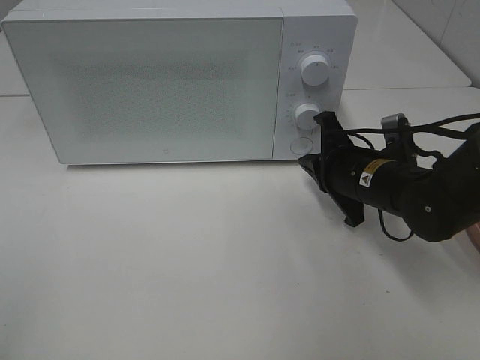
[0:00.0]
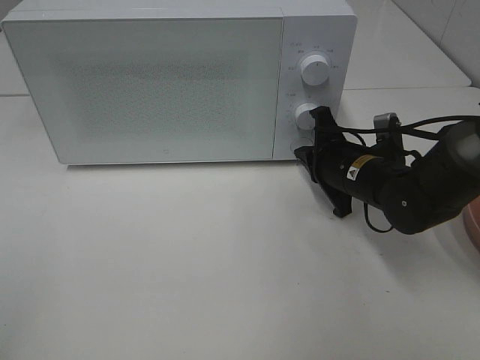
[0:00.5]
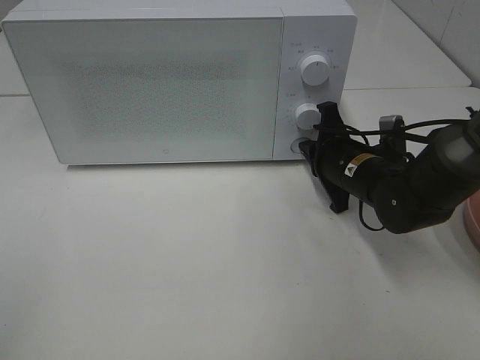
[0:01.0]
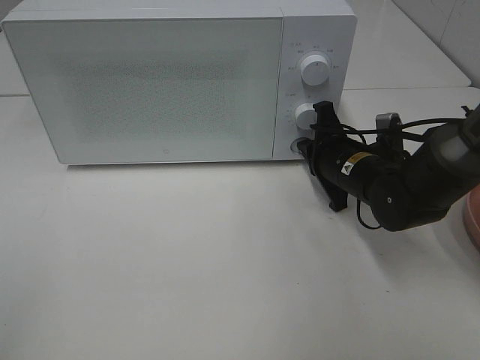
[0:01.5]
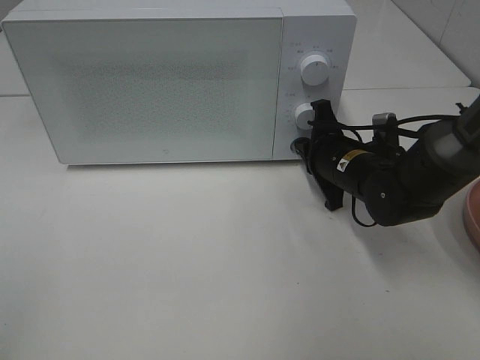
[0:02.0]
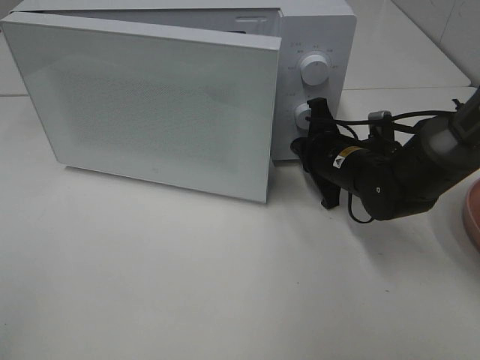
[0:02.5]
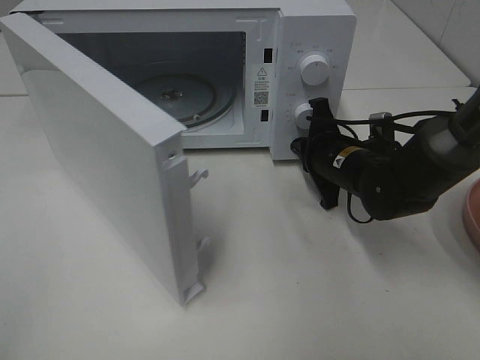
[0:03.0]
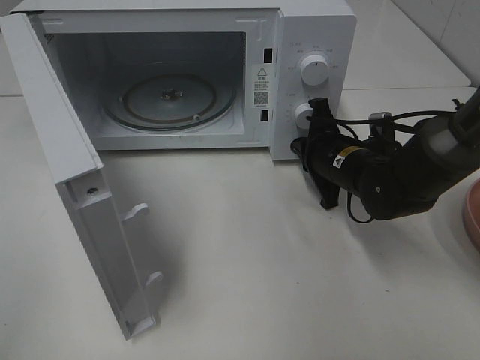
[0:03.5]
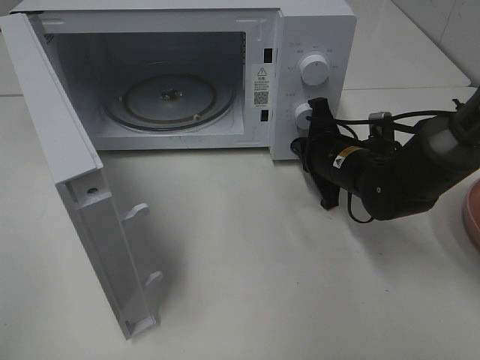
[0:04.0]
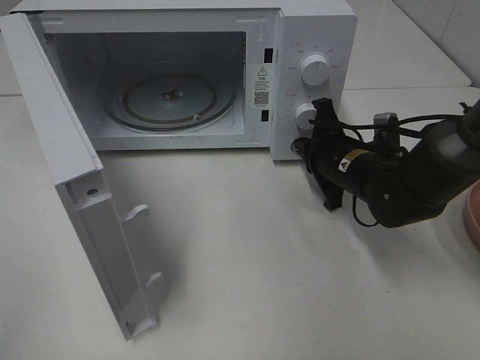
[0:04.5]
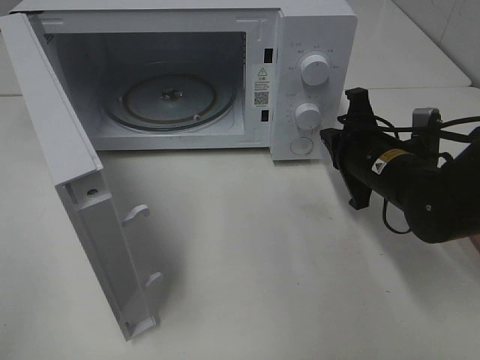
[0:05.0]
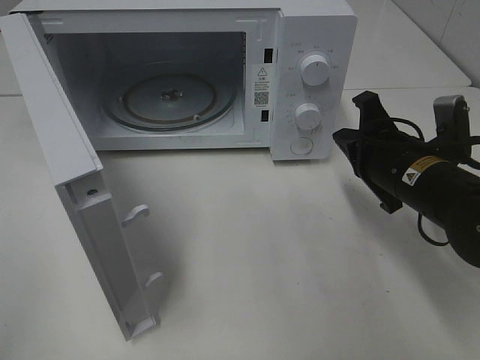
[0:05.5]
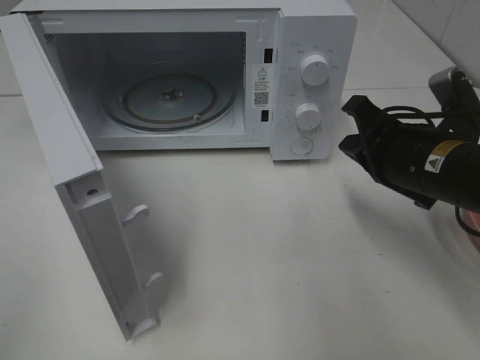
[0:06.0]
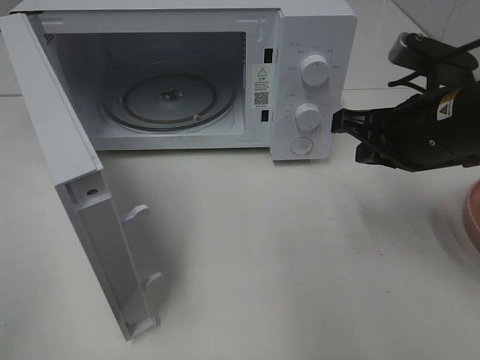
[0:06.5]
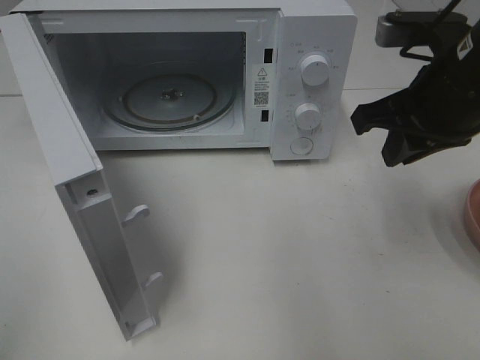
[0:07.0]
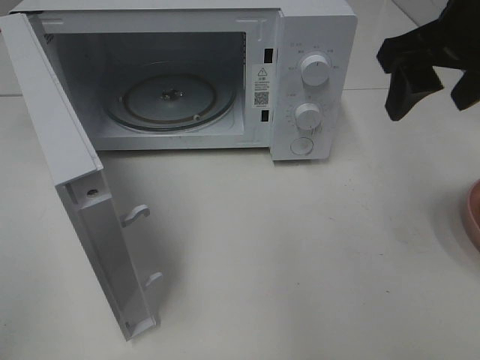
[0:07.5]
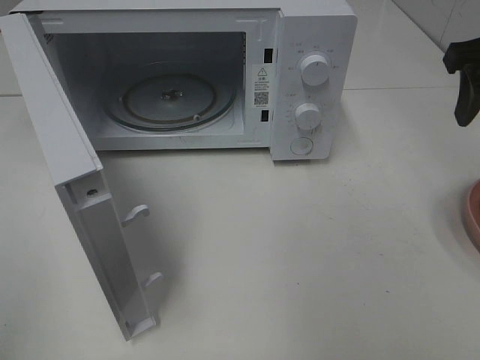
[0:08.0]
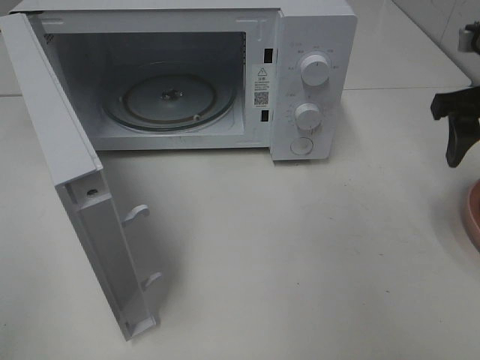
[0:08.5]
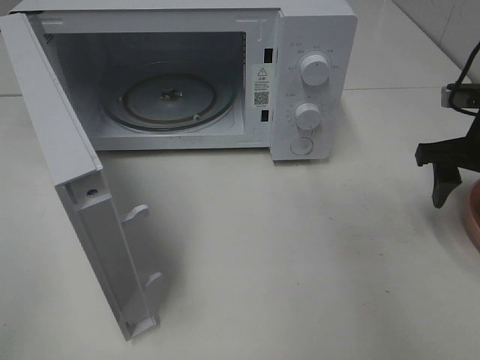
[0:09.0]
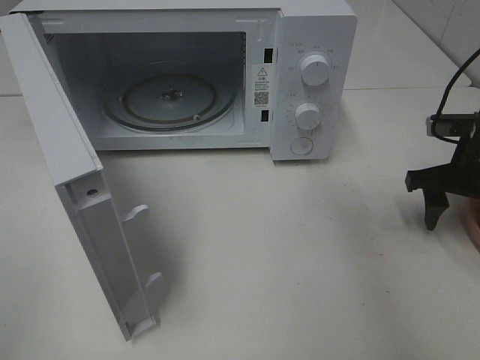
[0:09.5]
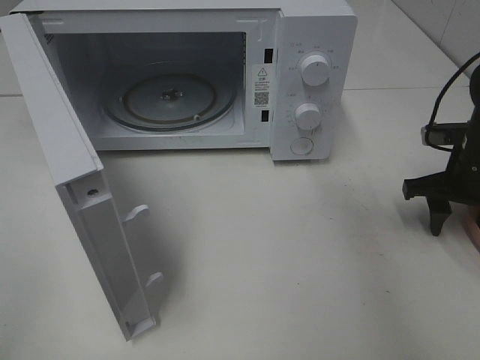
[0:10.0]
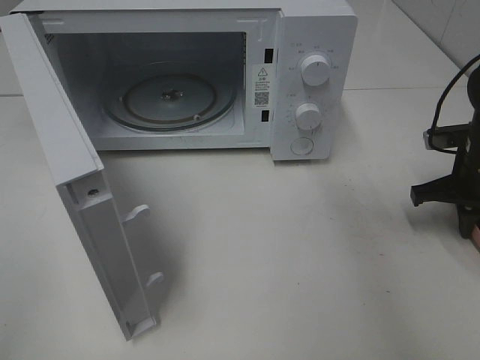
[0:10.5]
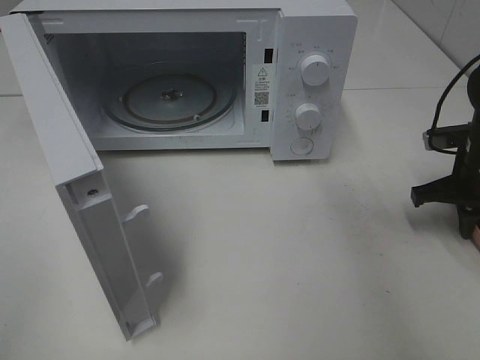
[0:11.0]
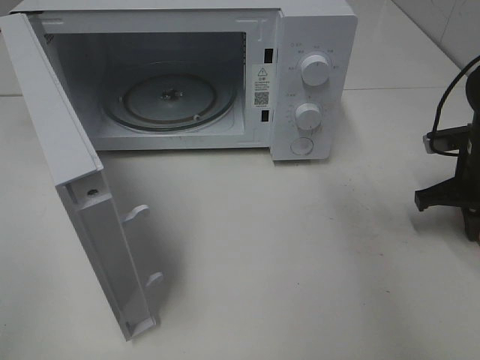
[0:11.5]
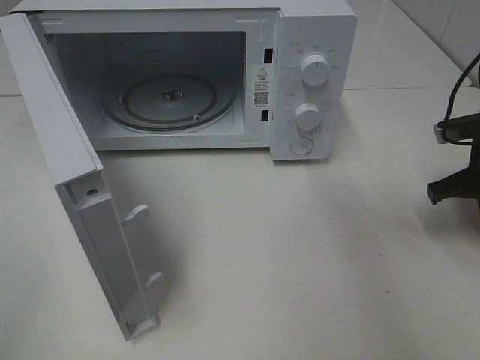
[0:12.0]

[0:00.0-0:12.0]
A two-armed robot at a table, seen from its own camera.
Task of the whole recording: Heat Sandwich.
Step, 0:00.0 to 0:05.0: Right hand: press the switch.
Step, 0:05.5 to 0:10.5: Right hand: grab the plate with the sandwich.
0:00.0 to 0:02.0: The grippers move only a little.
0:04.0 to 0:06.0: The right gripper is displaced backward and upward by some 15 cm.
0:06.0 to 0:08.0: The right gripper goes about 15 cm upward and to the right, and opens.
0:08.0 to 0:10.0: The right gripper is displaced downward by about 20 cm.
0:10.0 to 0:12.0: The right gripper closes up.

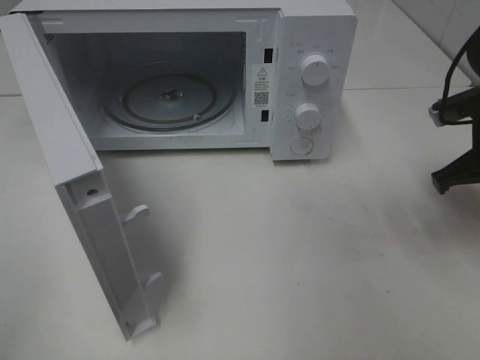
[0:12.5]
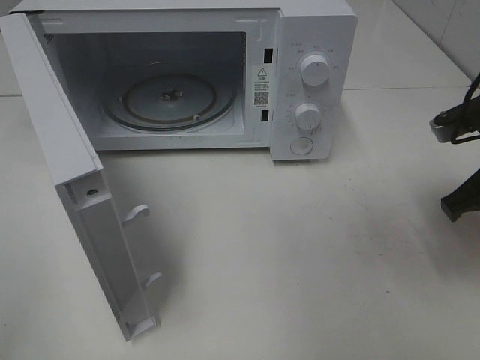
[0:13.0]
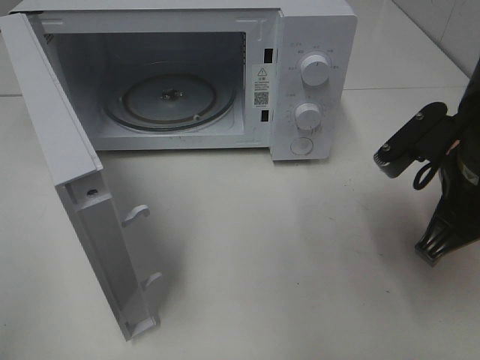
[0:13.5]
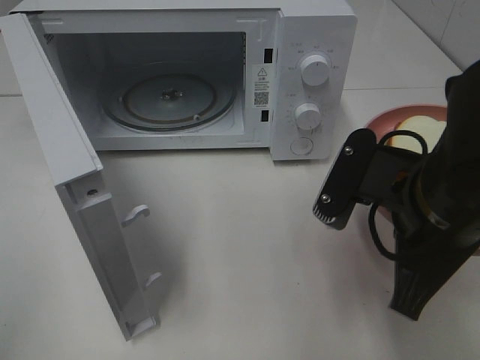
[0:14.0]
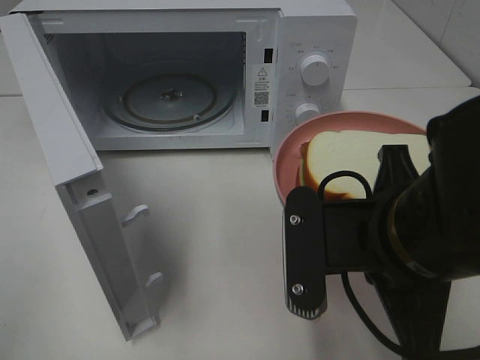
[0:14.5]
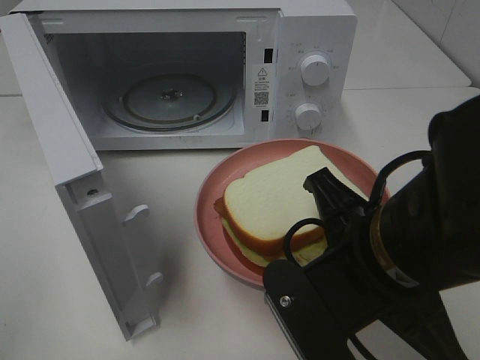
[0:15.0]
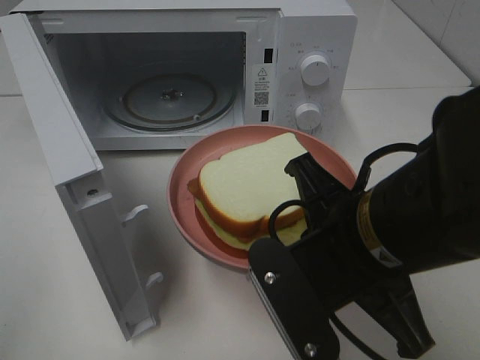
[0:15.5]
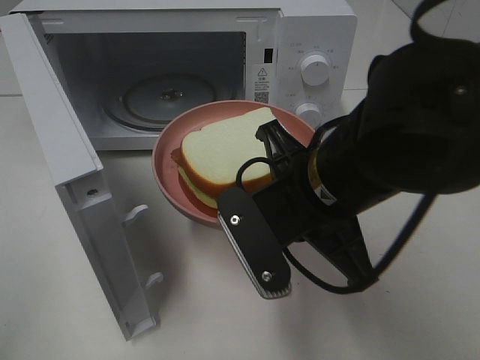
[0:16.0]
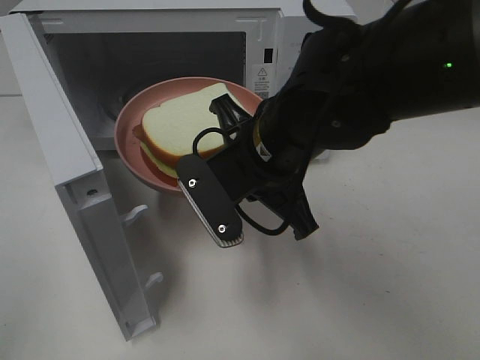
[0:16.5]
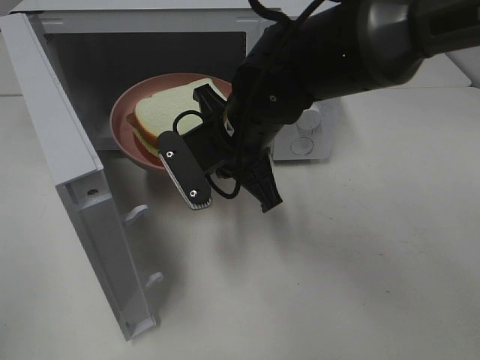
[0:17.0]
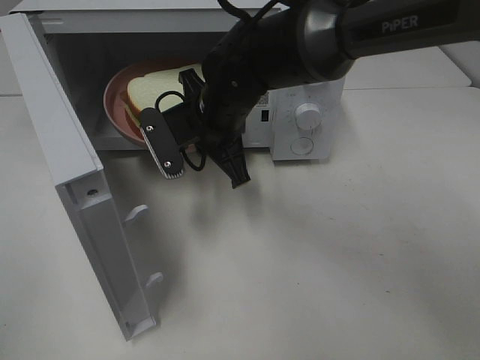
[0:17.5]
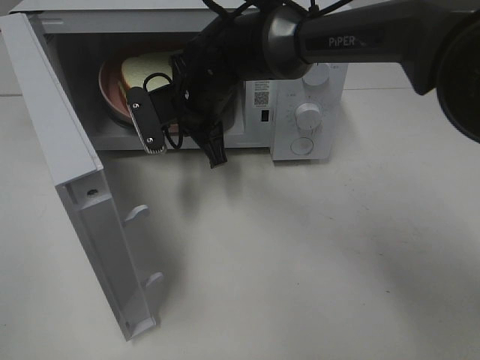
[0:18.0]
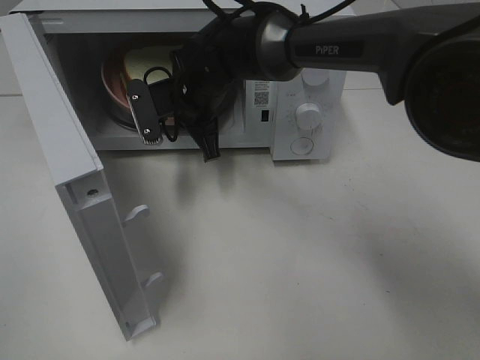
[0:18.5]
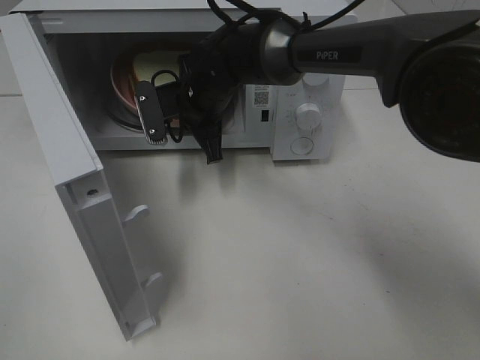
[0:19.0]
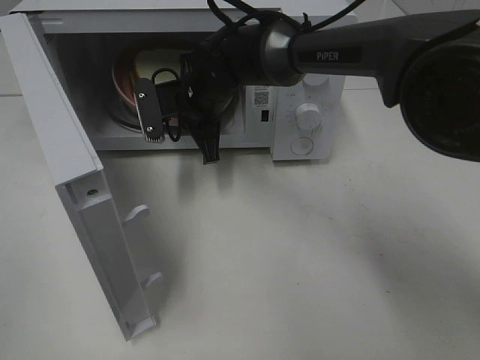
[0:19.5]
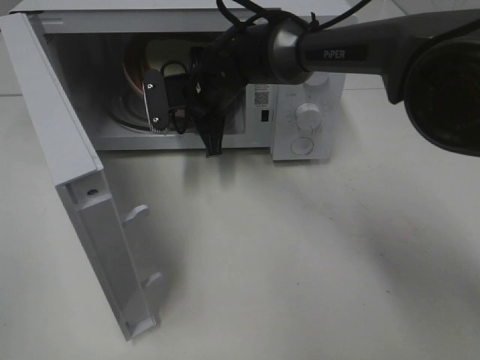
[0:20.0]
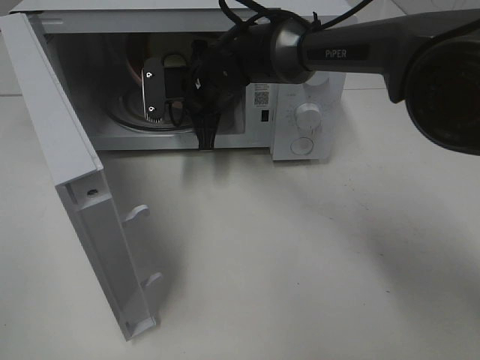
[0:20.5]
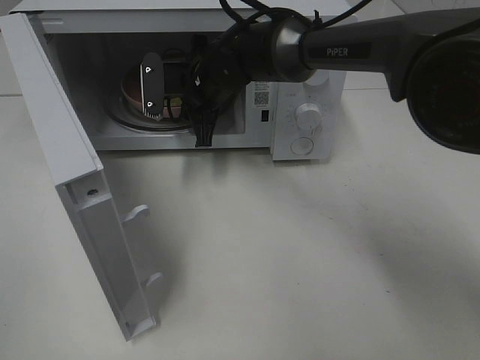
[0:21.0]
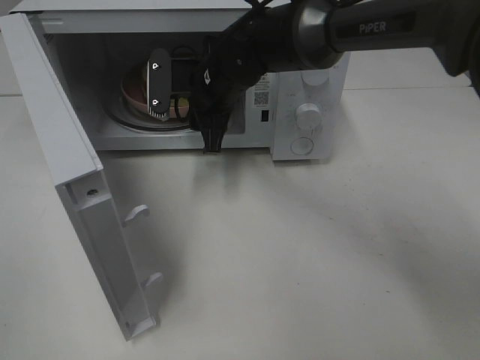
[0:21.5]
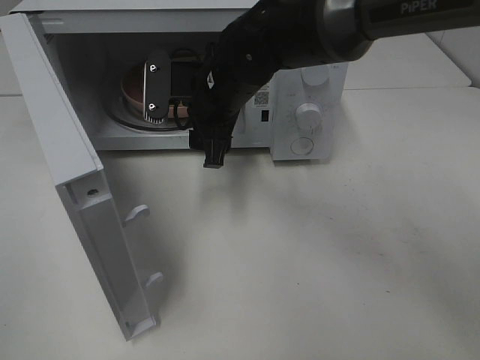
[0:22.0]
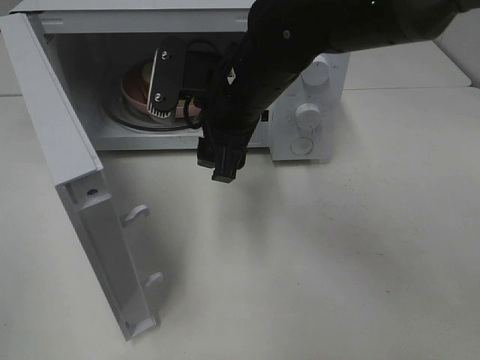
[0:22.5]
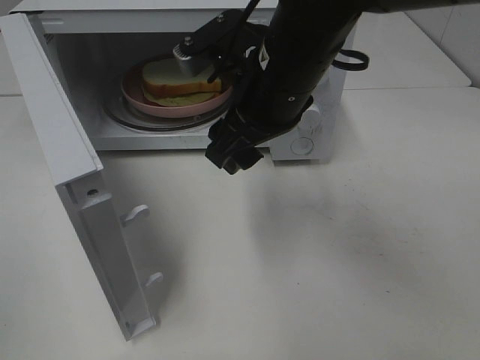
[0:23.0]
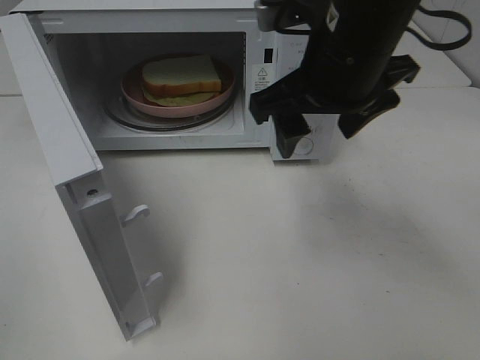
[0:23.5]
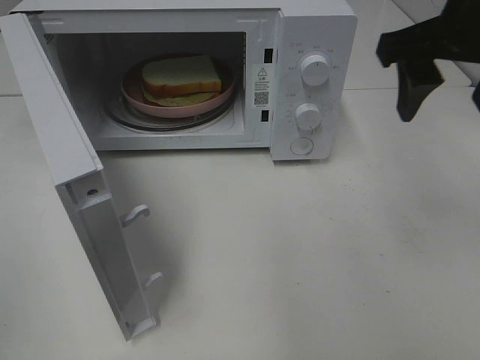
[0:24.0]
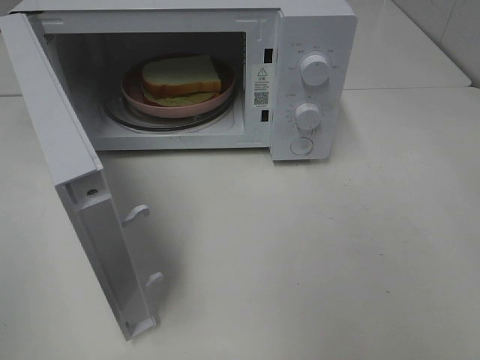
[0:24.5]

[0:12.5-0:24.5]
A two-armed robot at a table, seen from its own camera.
Task of the whole recording: Heat Sandwich.
Step, 0:12.5 to 0:21.5: Right hand: place the plate in the microwave.
0:12.5 to 0:14.5: The right gripper goes some 25 cm to the left and backward.
0:14.5 to 0:16.5: The right gripper shifts about 15 cm forward and to the left.
0:16.5 to 0:18.5: The right gripper is displaced forward and to the left by some 20 cm.
0:18.5 to 0:20.5: The grippers move only a little.
0:20.5 to 0:22.5: The right gripper moves backward and upward, approximately 15 cm, and opens up.
0:22.5 to 0:24.5: The right gripper is displaced to the right, backward and upward by roughly 30 cm.

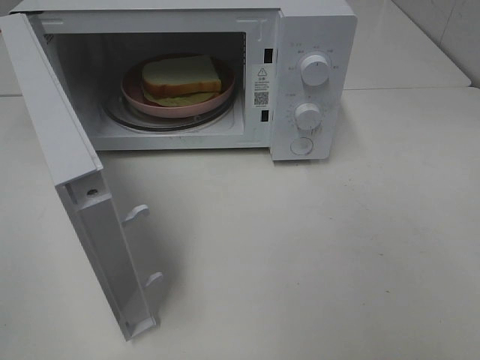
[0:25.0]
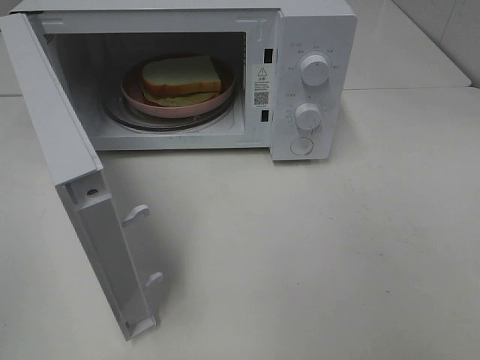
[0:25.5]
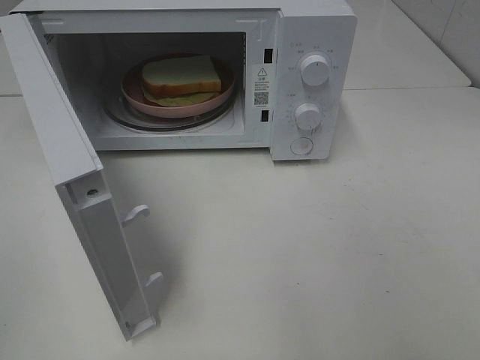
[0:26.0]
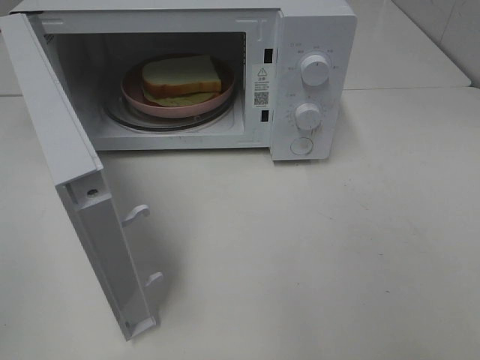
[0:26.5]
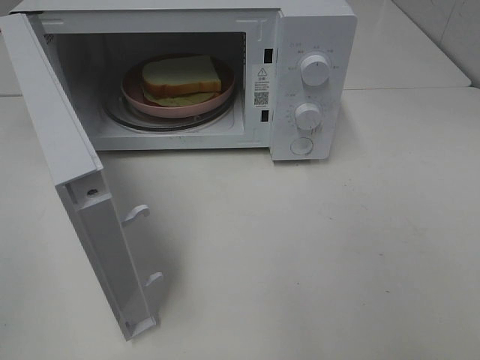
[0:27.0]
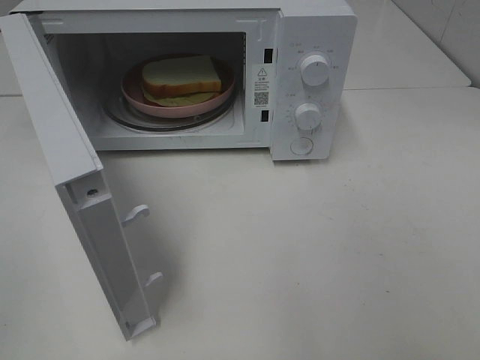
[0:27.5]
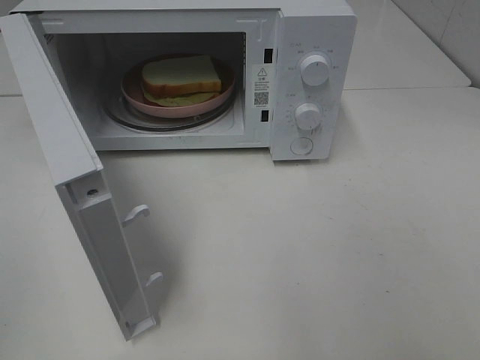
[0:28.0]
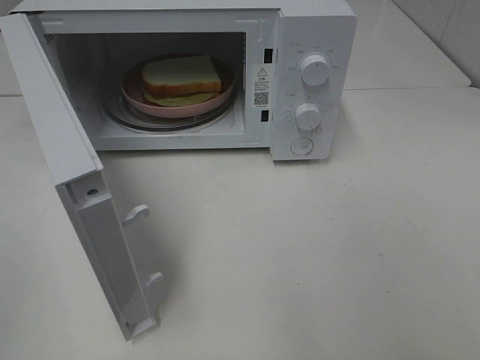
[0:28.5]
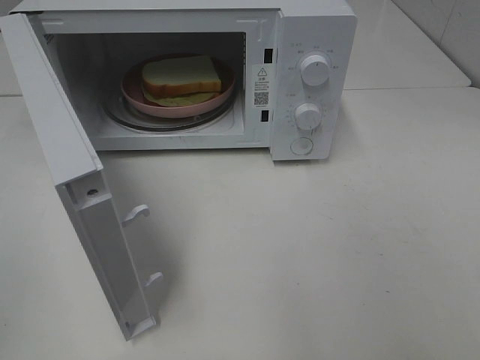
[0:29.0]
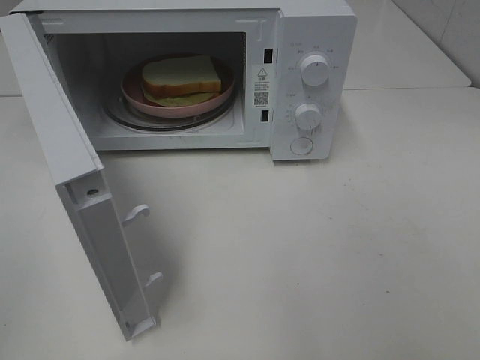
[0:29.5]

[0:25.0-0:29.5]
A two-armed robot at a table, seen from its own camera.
Task of the whole recording: Heat Sandwich.
0:27.0 to 0:29.5: Neither gripper changes place.